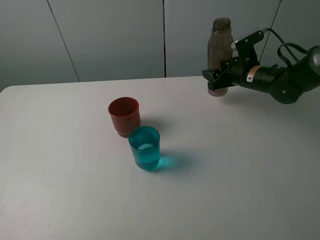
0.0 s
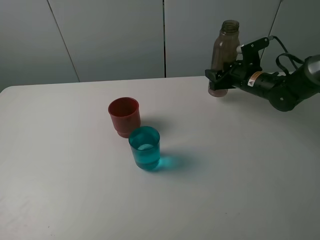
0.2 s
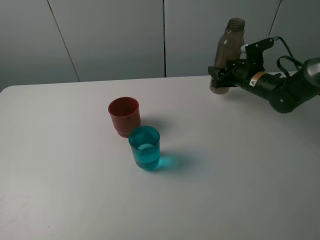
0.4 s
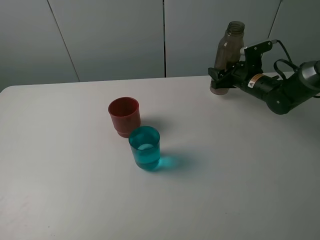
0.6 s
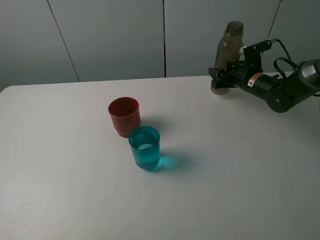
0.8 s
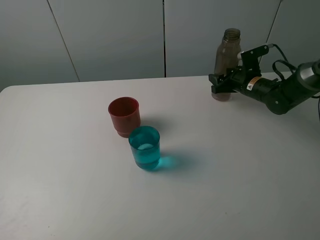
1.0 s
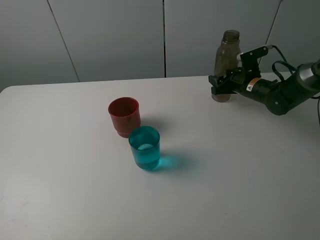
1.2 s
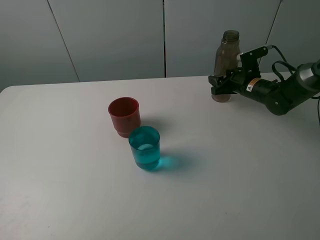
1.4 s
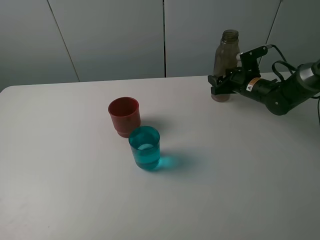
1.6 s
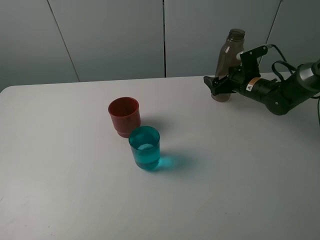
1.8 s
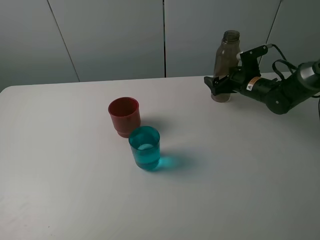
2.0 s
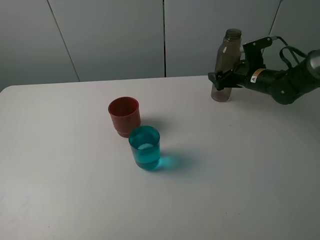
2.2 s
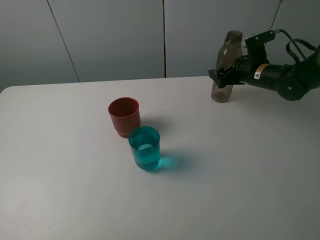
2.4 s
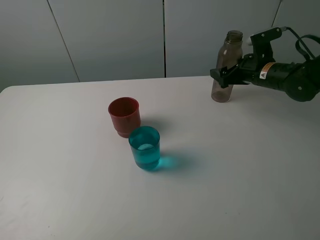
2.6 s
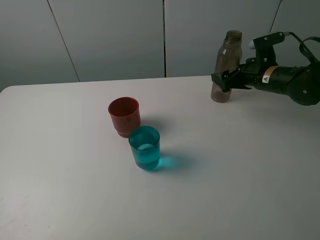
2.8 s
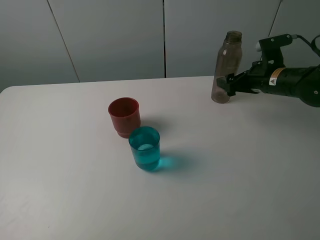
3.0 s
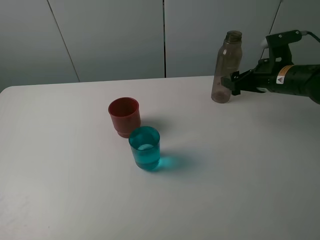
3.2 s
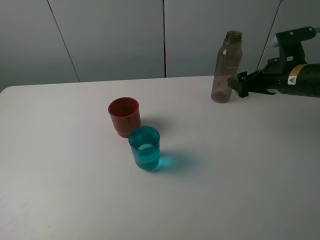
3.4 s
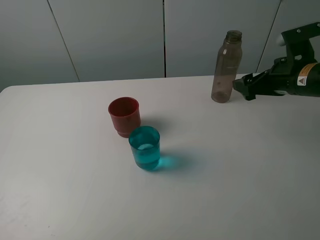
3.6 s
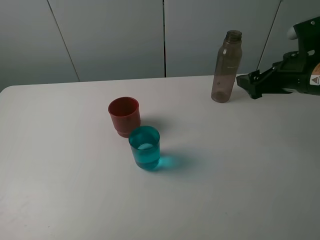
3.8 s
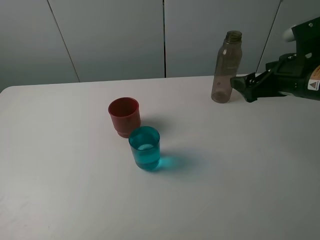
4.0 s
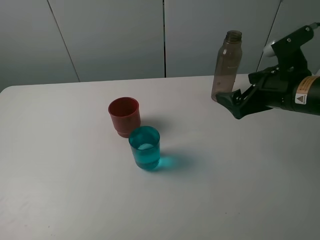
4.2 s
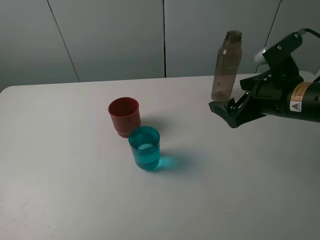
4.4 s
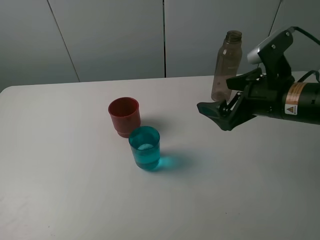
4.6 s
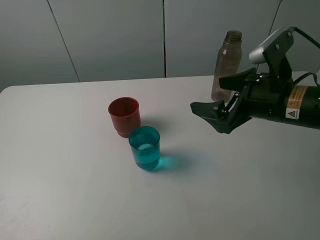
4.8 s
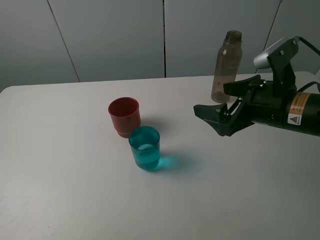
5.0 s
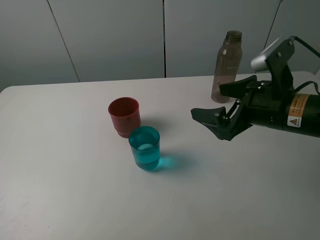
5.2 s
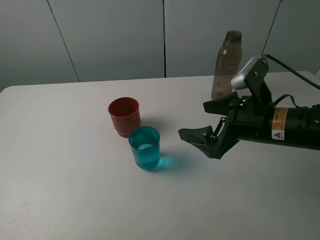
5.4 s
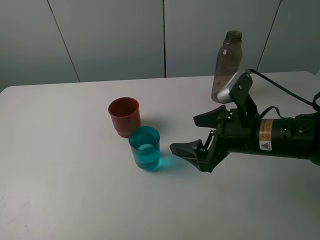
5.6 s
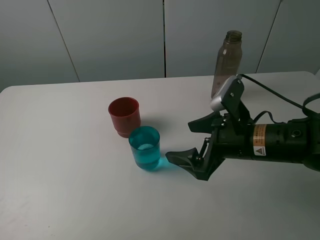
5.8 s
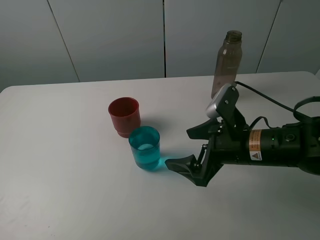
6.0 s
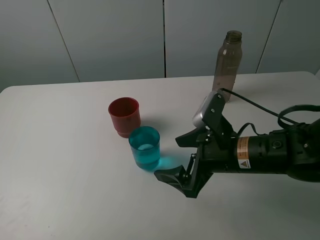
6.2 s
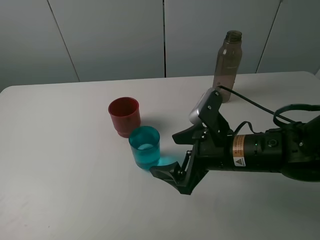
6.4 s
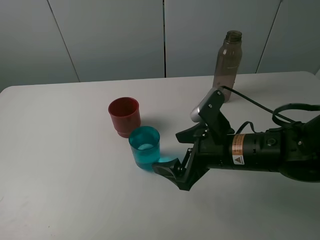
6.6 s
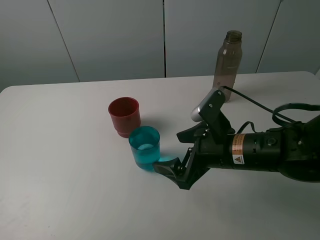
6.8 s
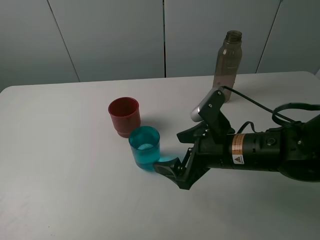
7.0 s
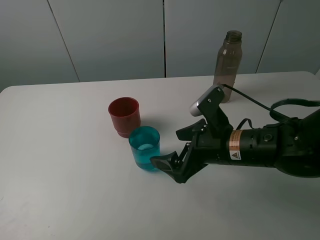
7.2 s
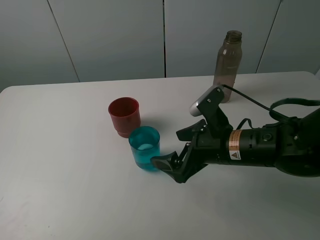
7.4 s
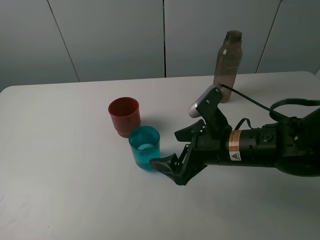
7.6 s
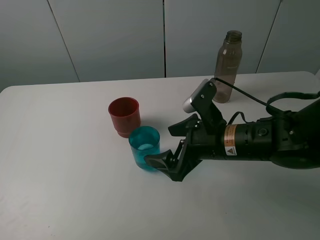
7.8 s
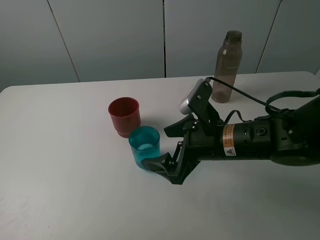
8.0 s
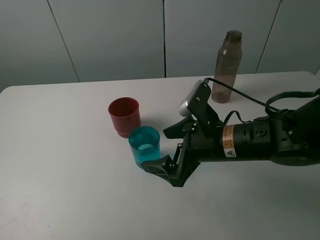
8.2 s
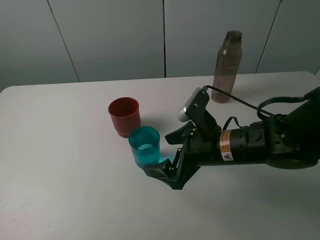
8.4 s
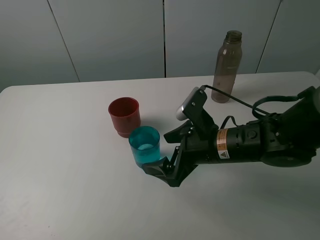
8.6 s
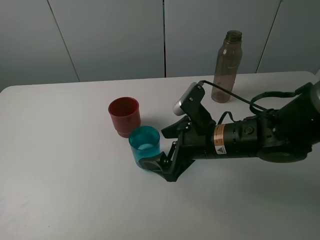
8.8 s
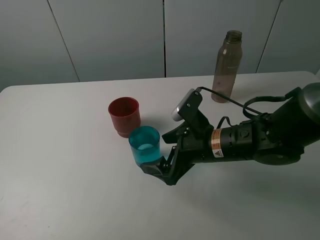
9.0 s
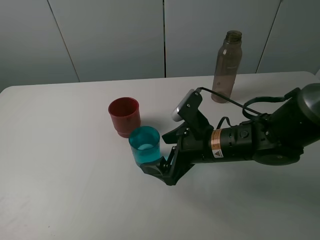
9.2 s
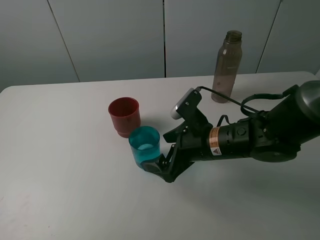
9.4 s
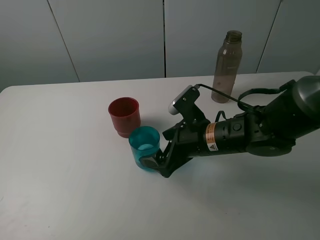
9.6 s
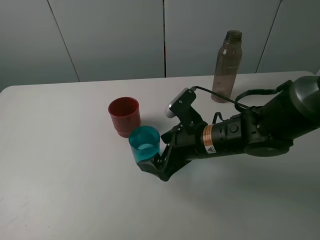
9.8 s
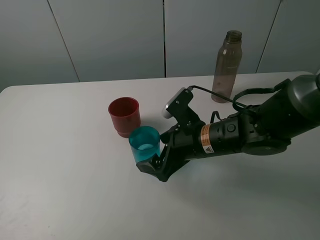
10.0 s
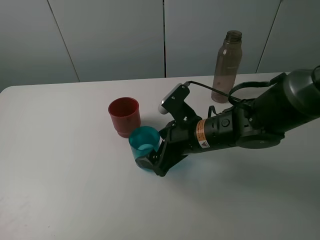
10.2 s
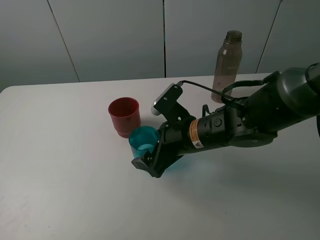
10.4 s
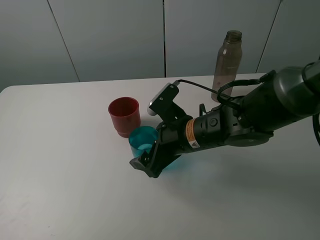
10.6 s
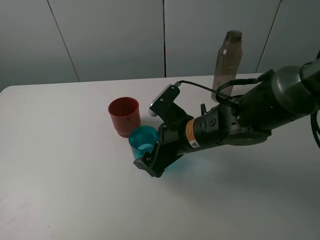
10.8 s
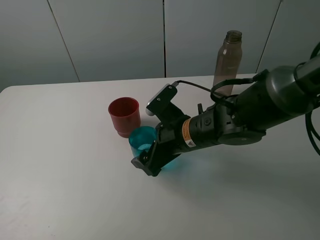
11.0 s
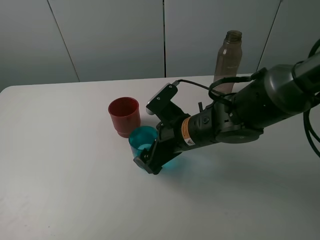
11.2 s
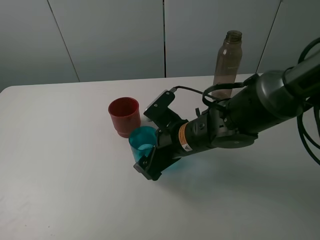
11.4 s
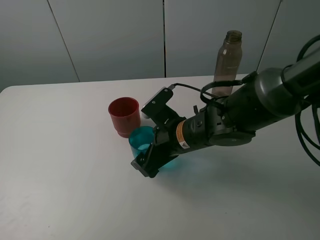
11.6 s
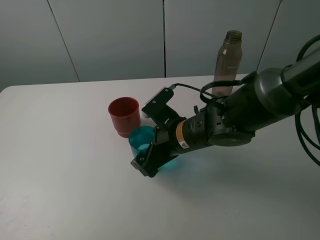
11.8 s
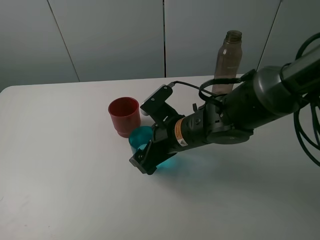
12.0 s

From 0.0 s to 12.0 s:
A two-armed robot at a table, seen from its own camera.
Task of the whole recording: pick up the bottle and pour water into the cup, then pick up the cup containing water and pour it into another cup.
Step, from 0.0 s to 2.0 s: Place the brown bottle with the right gripper.
From 0.0 s to 1.6 s: The grippers move only a little.
From 1.6 s to 3.0 s: The right gripper travels upward and backward by approximately 10 cm, and opens up.
From 3.0 s to 4.4 s: The right gripper travels backward by about 10 cm.
From 4.4 s to 6.0 s: The right gripper goes approximately 10 cm to the left and downward.
From 6.0 s to 9.0 s: The grippers move only a little.
From 9.0 s to 12.0 s: There are only small adjustments of the grippers.

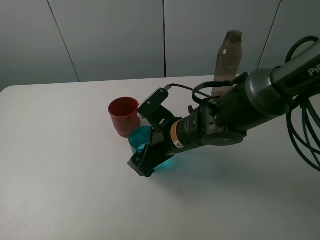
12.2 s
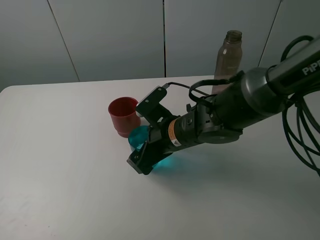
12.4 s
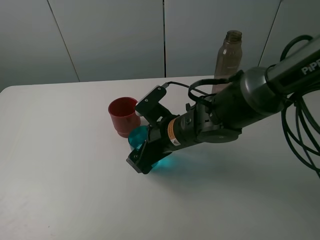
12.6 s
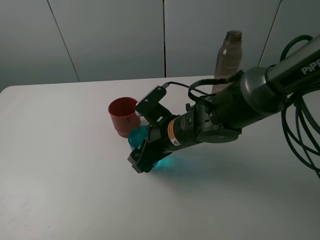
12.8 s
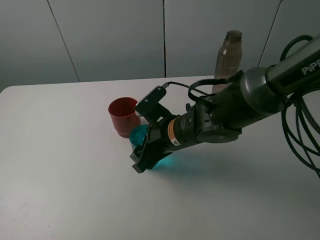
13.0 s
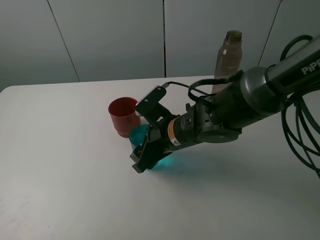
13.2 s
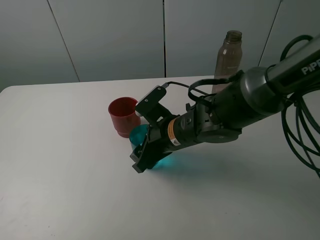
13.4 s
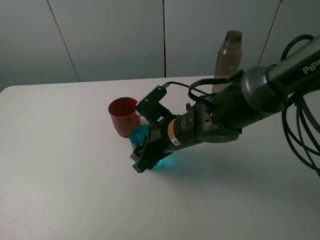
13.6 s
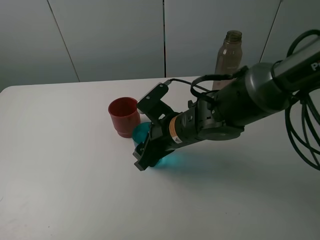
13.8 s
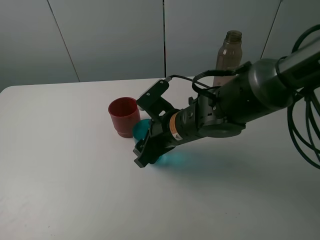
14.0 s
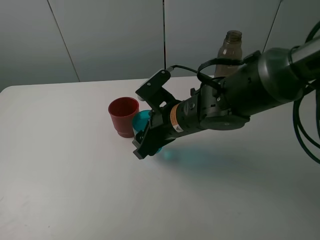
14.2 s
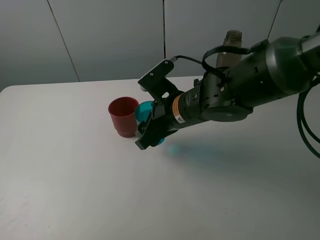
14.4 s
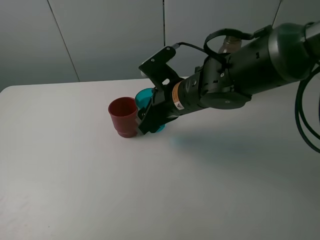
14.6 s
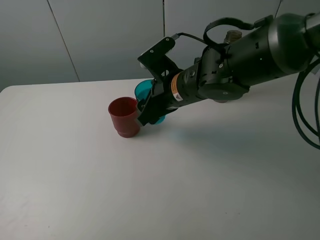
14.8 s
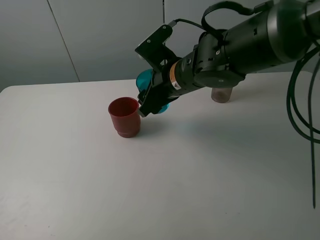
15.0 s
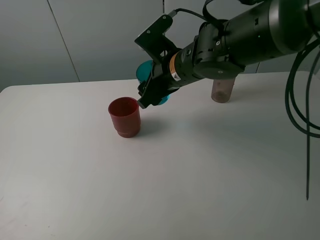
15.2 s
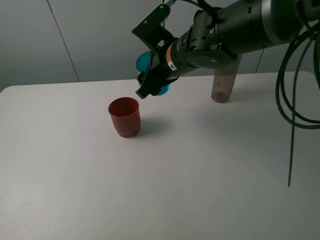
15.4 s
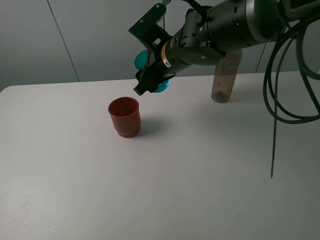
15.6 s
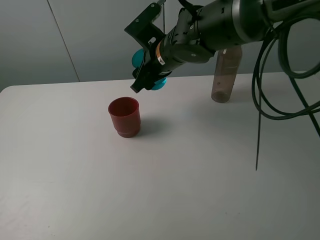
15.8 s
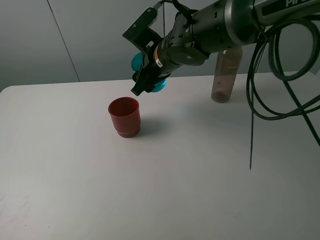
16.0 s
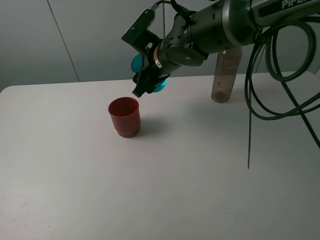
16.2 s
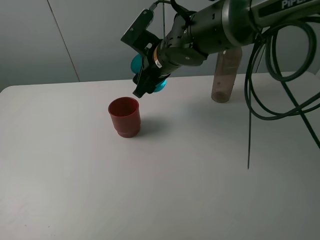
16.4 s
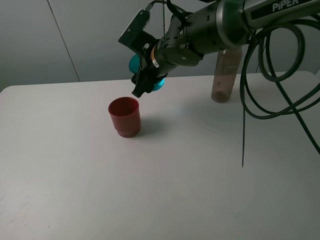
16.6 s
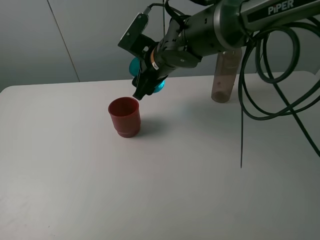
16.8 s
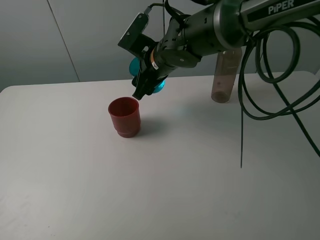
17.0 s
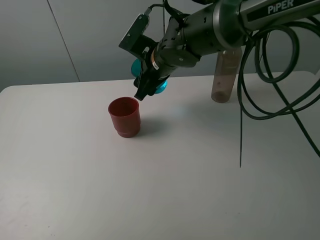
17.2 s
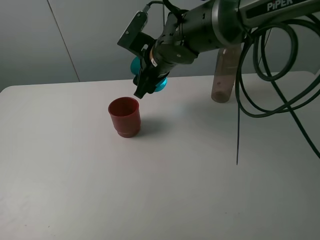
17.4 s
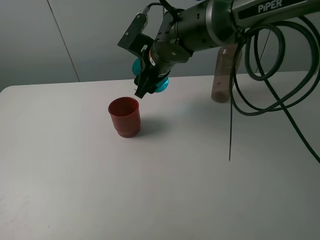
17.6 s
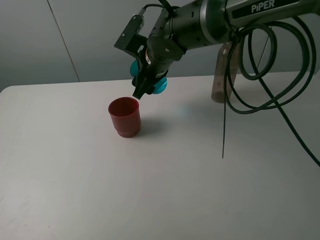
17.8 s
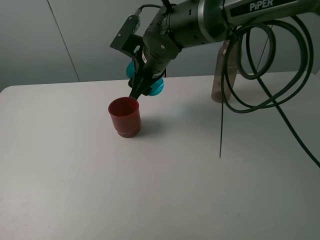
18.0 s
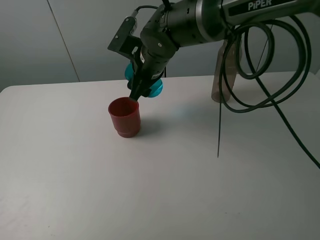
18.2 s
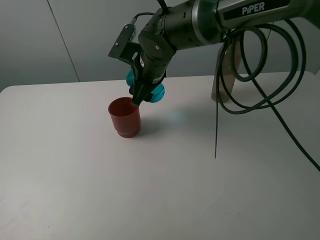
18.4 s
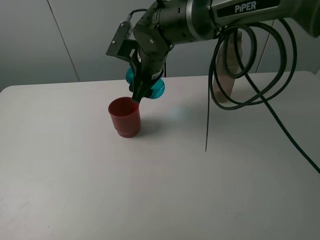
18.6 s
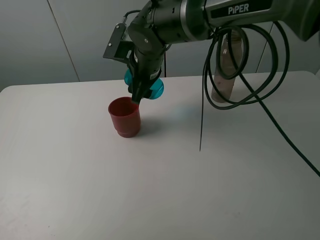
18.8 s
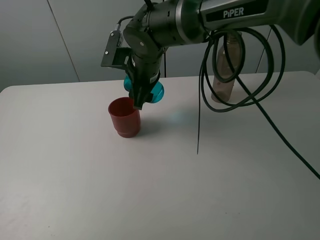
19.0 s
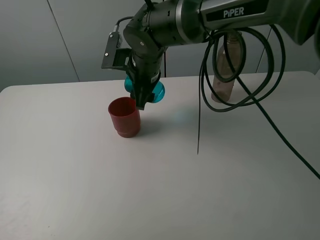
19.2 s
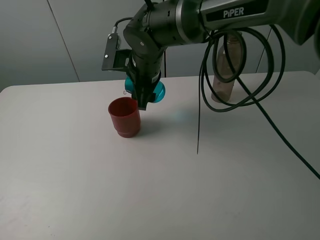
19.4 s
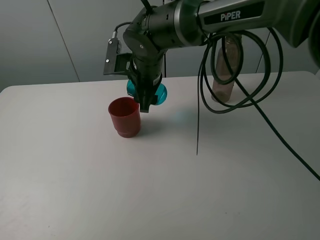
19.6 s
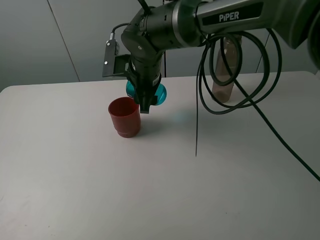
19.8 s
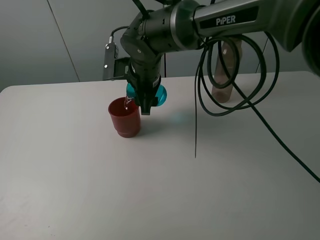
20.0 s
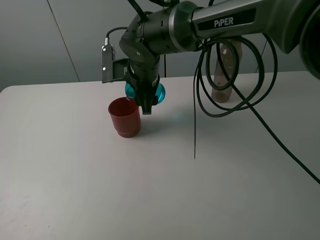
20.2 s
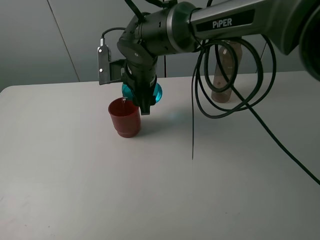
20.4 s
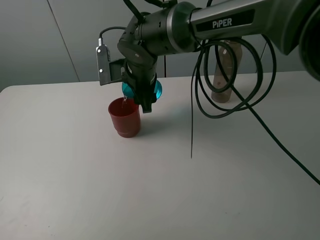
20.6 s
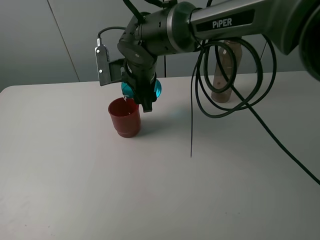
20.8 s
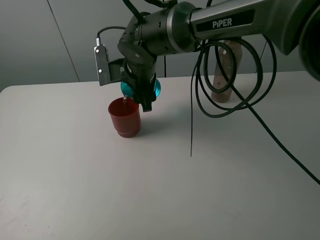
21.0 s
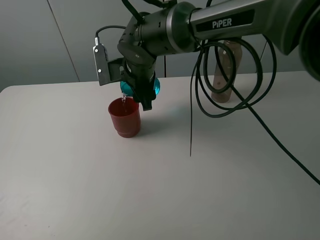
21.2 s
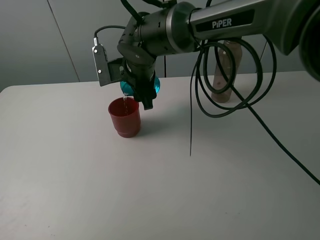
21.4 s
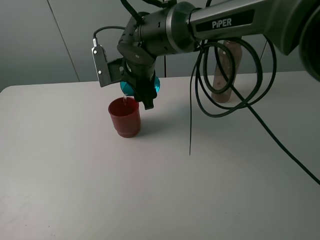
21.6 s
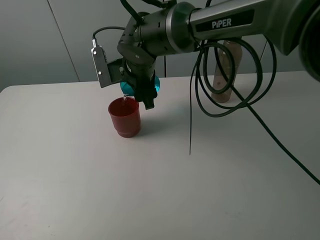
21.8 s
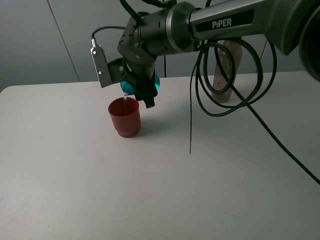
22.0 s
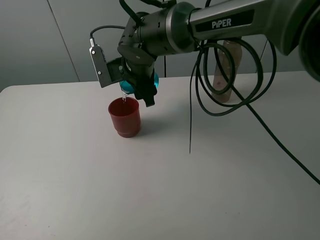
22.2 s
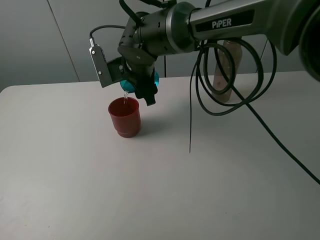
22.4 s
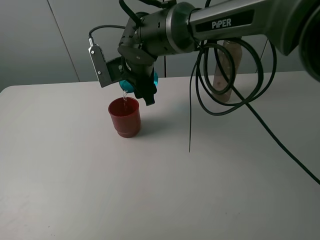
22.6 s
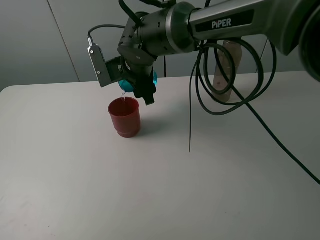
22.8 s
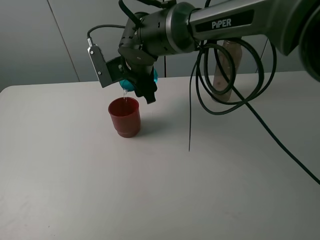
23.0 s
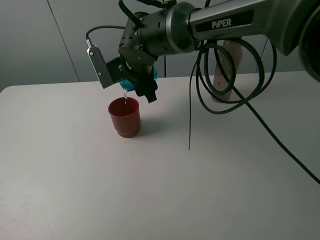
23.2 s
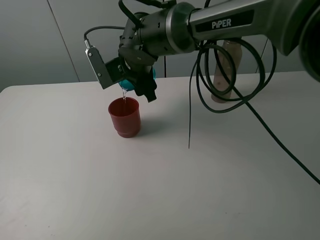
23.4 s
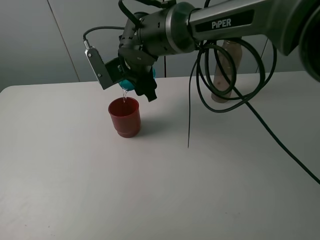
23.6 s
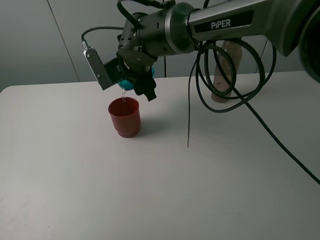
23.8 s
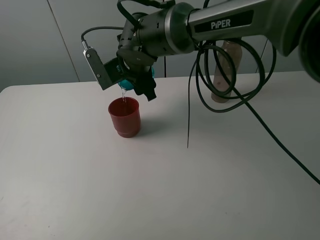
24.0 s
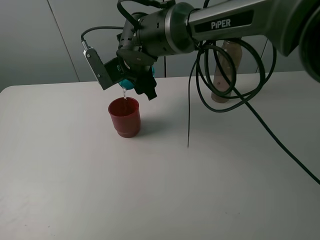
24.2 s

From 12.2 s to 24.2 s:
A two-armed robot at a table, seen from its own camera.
Task of the whole recording: pick up the bottle and pour water into the cup, then pick up the cup containing water and pour it into another cup.
From 12.2 s to 13.8 s: The right gripper closes.
From 13.8 s to 15.2 s: The right gripper is displaced upward and forward by approximately 10 cm.
From 15.2 s to 16.6 s: The right gripper moves forward, approximately 5 cm.
From 16.6 s to 18.2 s: The grippers make only small movements.
From 19.8 s to 21.2 s: The grippers make only small movements.
From 21.2 s to 24.2 s: The grippers make only small movements.
